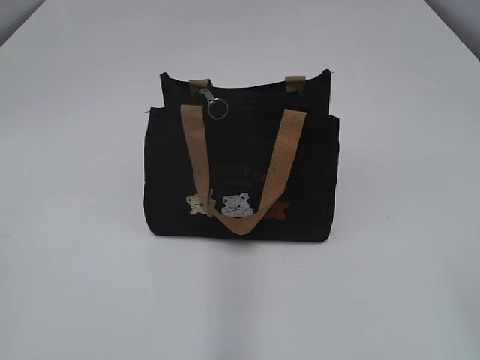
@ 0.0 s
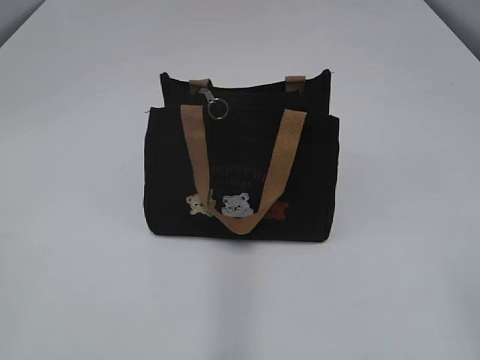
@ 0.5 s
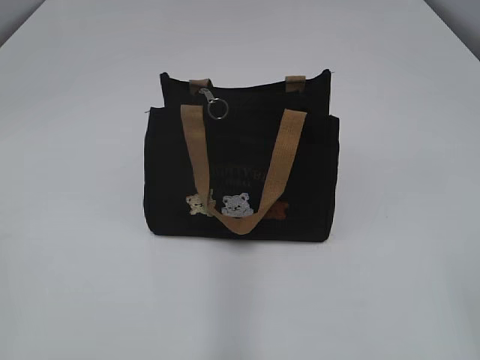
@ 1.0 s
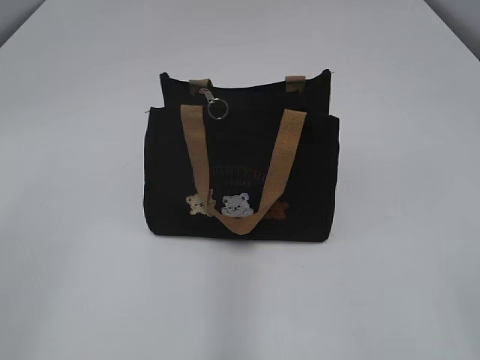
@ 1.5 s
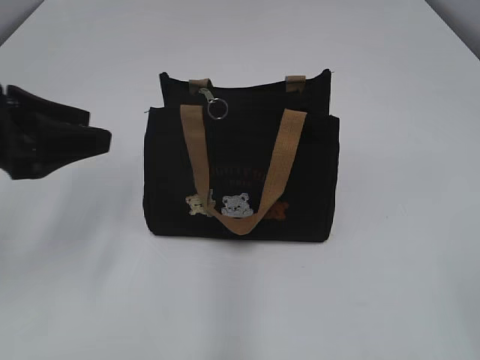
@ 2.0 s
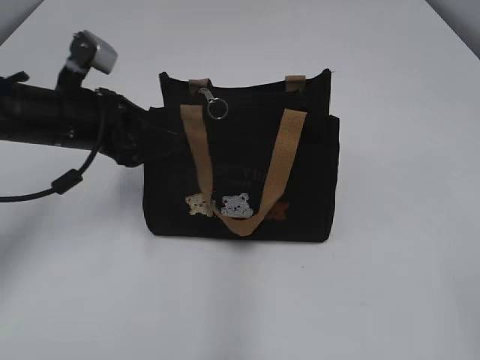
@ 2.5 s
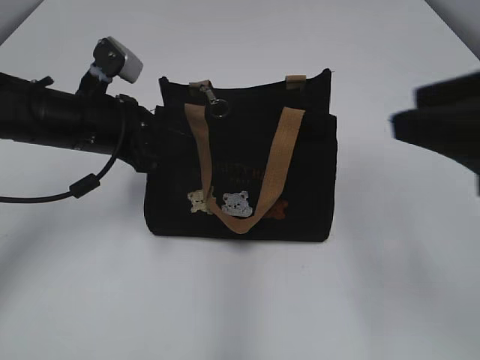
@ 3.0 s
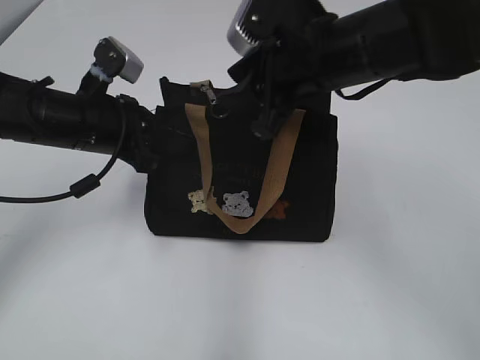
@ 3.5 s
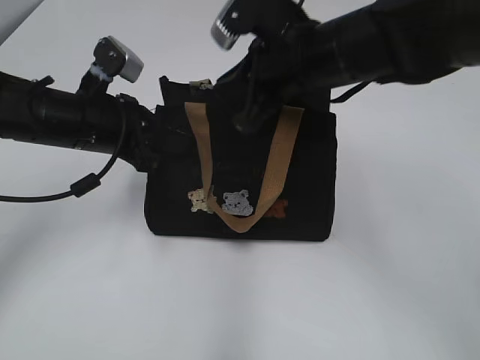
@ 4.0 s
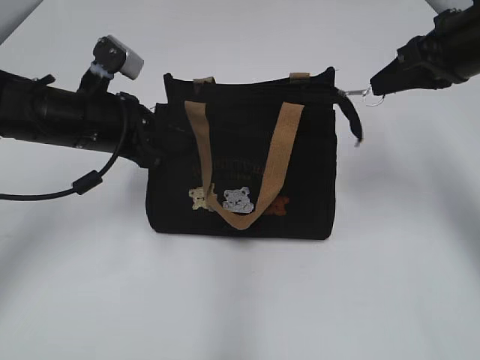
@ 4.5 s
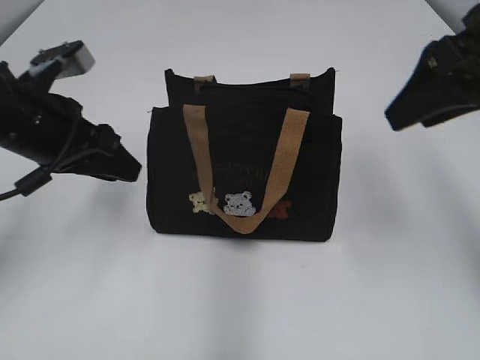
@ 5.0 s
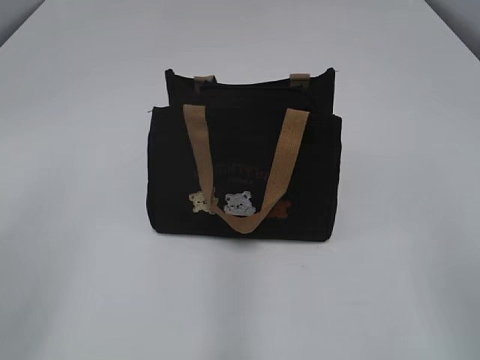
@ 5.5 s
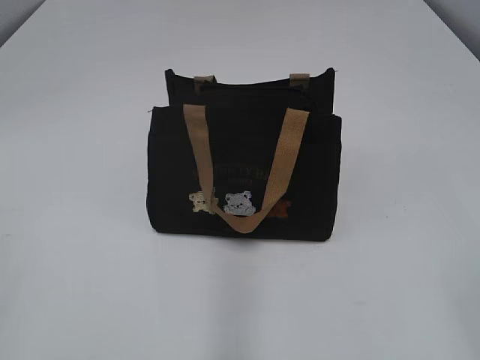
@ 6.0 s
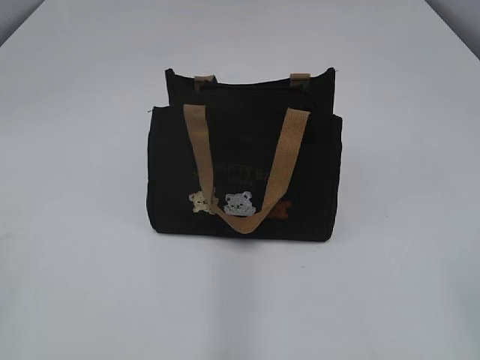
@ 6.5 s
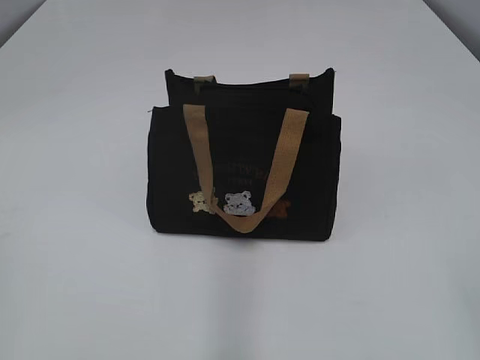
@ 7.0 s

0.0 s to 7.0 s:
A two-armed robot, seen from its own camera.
Step, 0.0 to 4.5 s: Pull open the zipper with your right hand.
2.0 to 3.5 s: The left gripper heads forward, to the right and downward, covering about 15 cm, and closes. The right gripper shifts approximately 40 cm forward and to the left.
3.5 to 5.0 s: The left gripper moves some 5 cm, and opens; the right gripper travels to the right, upward and backward by some 15 cm, and closes, then opens again.
5.0 to 7.0 s: The grippers both shift backward by roughly 30 cm.
